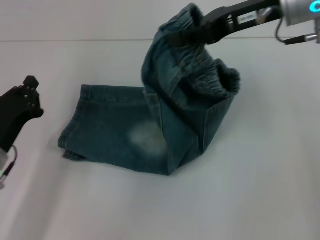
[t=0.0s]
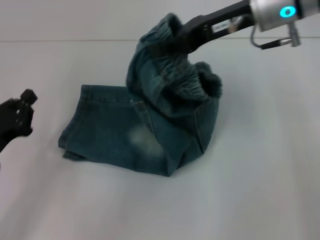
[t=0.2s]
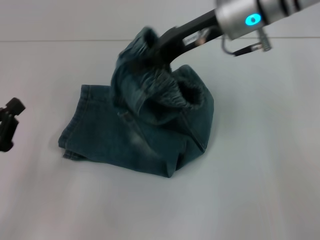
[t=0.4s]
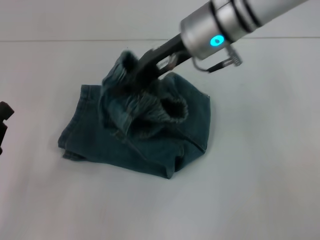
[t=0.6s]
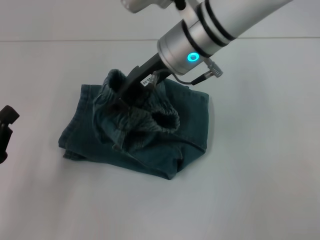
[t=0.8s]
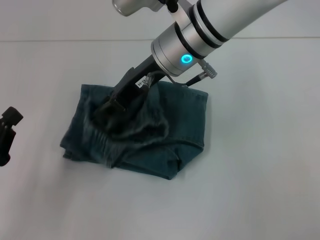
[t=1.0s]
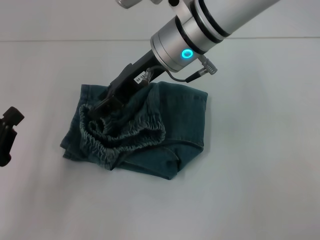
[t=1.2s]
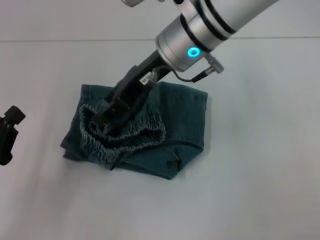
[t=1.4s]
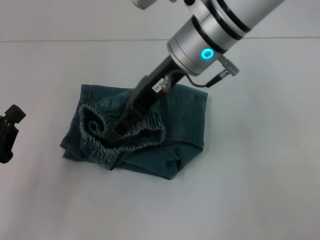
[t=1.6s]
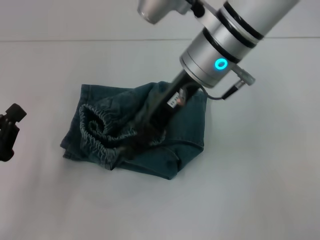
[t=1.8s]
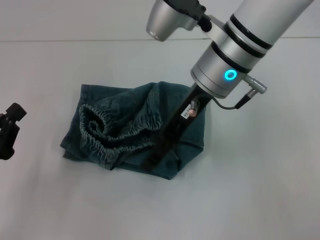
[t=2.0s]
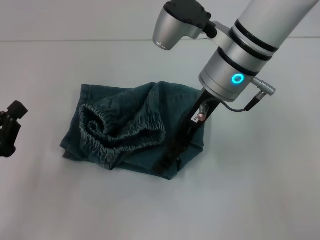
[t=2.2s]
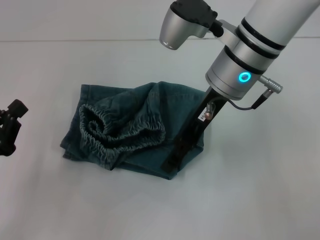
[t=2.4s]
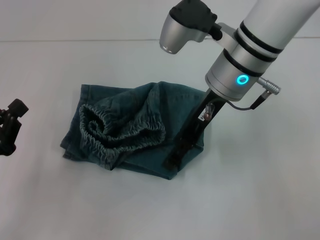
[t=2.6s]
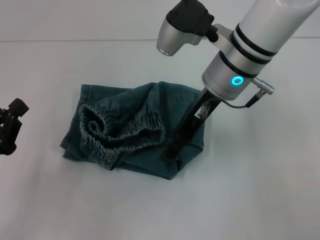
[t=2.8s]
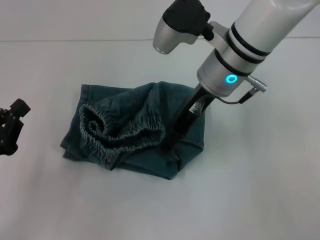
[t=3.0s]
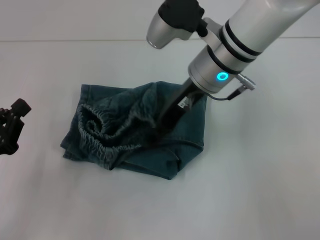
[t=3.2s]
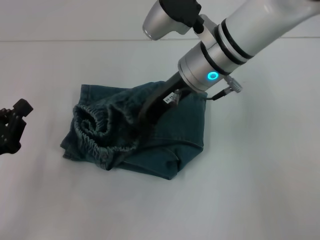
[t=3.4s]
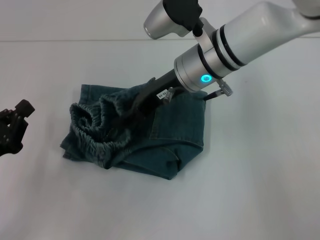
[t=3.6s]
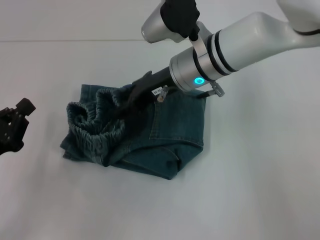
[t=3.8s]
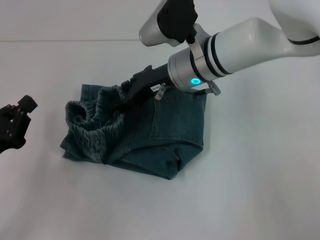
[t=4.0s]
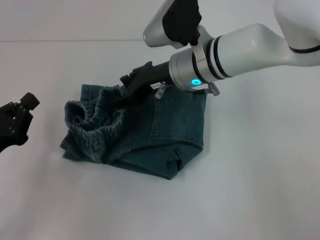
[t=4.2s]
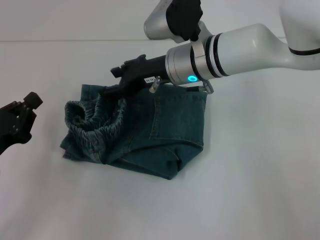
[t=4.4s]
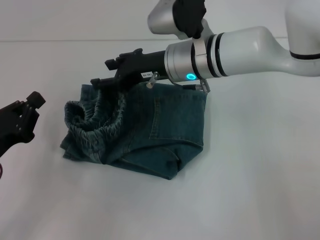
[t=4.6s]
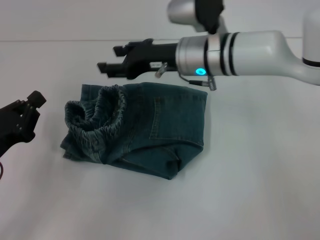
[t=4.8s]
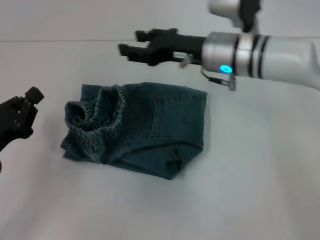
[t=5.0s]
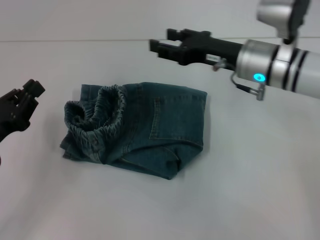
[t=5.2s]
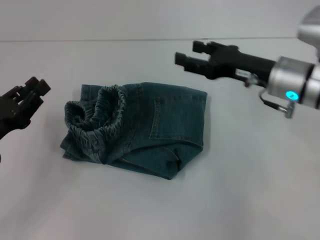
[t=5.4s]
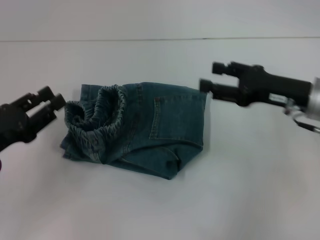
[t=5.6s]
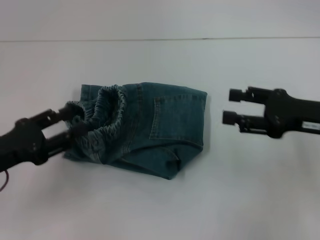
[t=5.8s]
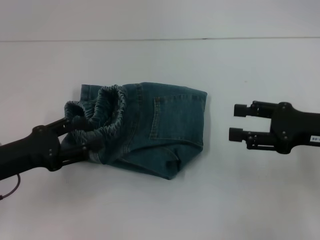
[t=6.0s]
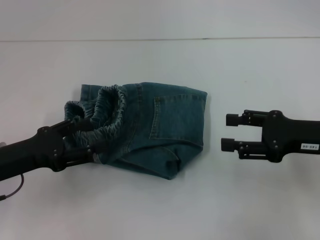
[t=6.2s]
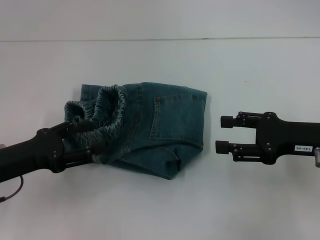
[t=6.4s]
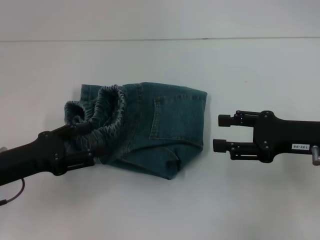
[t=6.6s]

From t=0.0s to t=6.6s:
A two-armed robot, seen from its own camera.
Step, from t=0.0s to t=1.2s: Fold to the left with your right hand.
From t=0.0s to t=1.6s: The left gripper goes roughly 5 cm backward. The right gripper shifts roughly 15 cm to the left, and opens up.
From t=1.6s to t=3.2s: The grippers move only a little.
From t=3.2s to t=5.0s: The right gripper moves about 5 cm.
From t=5.0s to t=6.6s: The right gripper travels to the right and backward by some 20 cm; the left gripper opens its fingers.
